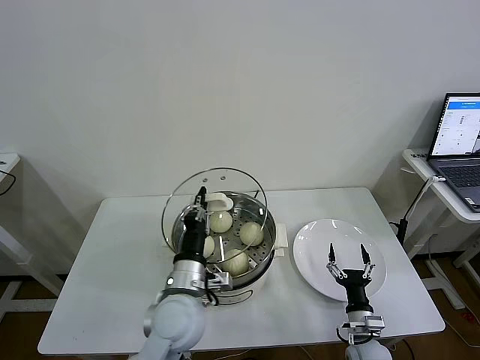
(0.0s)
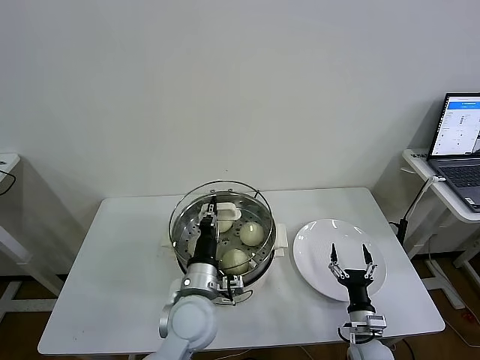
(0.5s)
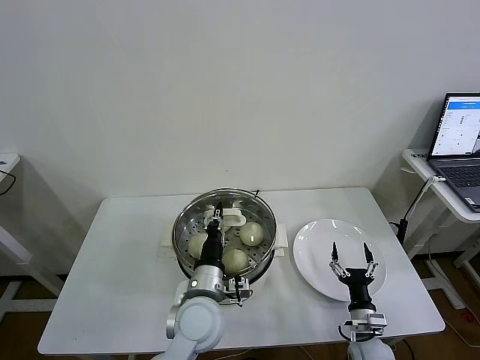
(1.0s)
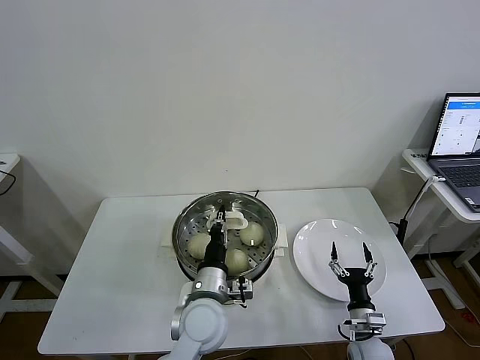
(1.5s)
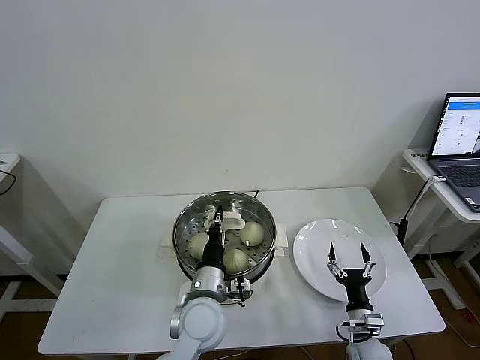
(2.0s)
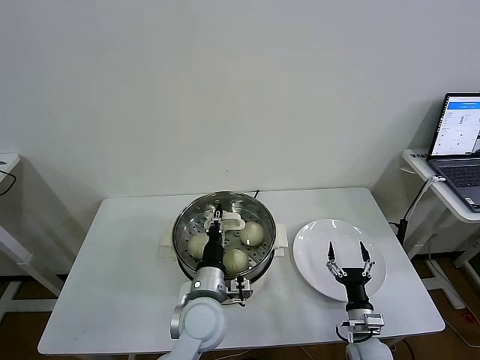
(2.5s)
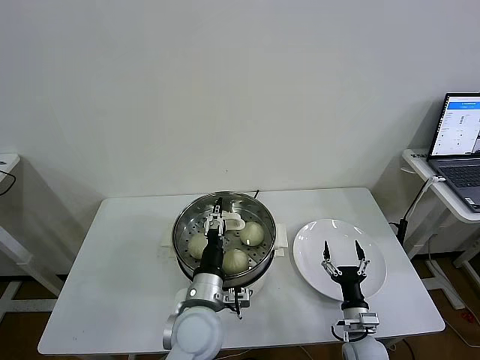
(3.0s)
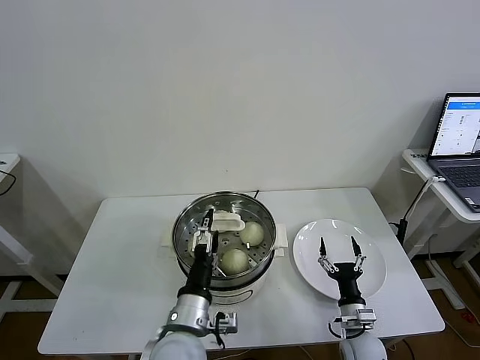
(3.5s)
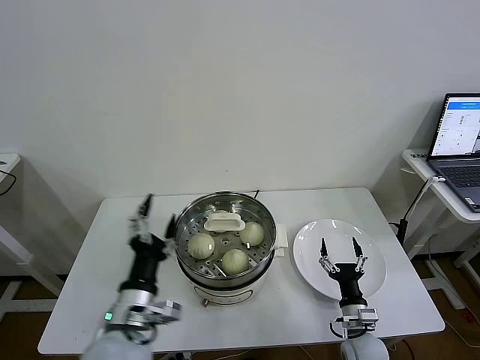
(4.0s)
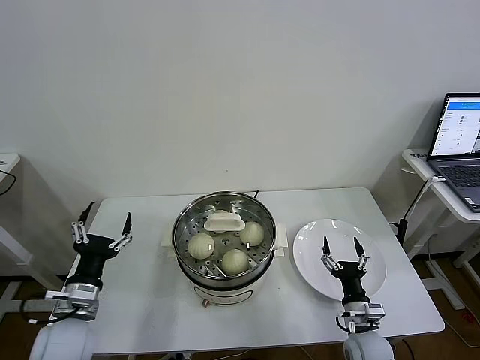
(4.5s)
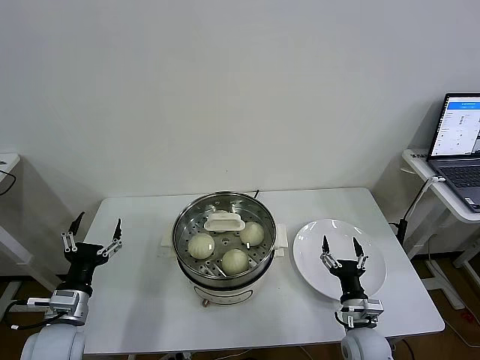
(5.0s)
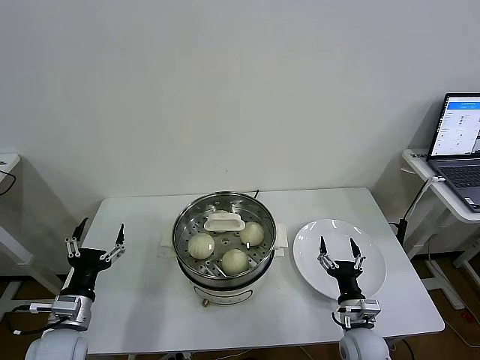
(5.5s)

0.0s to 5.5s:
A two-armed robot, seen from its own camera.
Task of the whole recording: take steamed baozi put them in steamer then cover it.
Step, 0.0s to 2.5s: Place the pot lid on the steamer with left gripper.
0.0s to 2.0s: The left gripper shifts by roughly 5 cm.
2.0s to 3.5s: The left gripper is displaced backward by approximately 5 cm, and opens its fingers.
3.5s to 5.5s: The left gripper travels to the left by about 25 cm.
